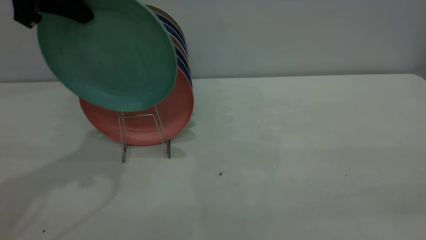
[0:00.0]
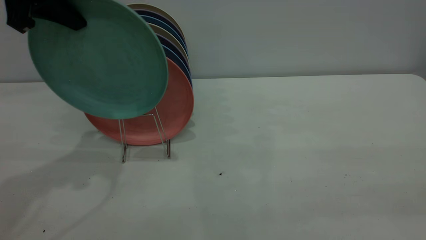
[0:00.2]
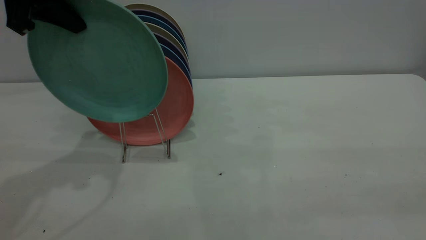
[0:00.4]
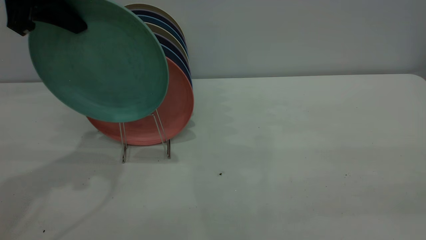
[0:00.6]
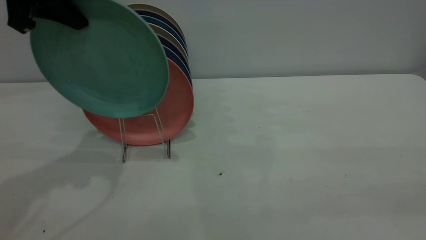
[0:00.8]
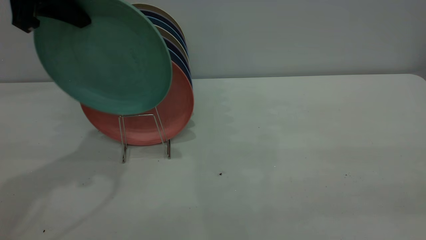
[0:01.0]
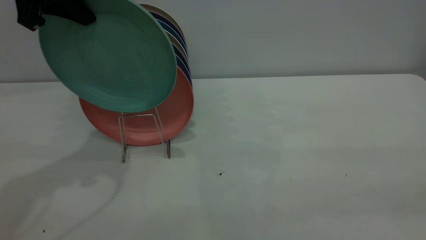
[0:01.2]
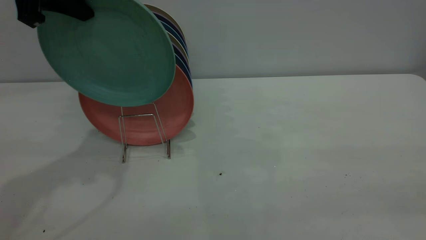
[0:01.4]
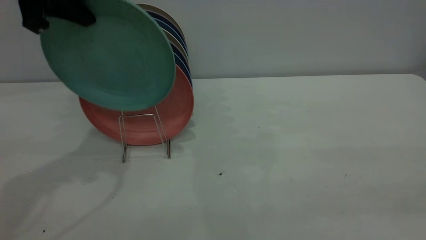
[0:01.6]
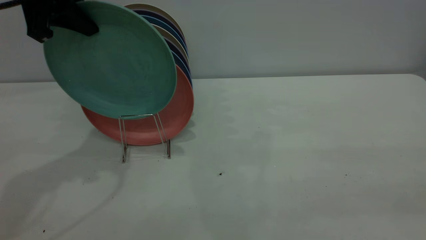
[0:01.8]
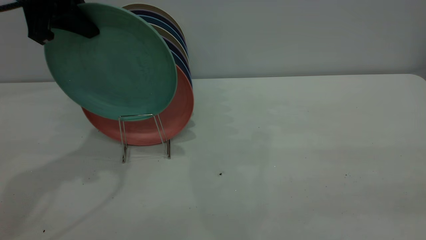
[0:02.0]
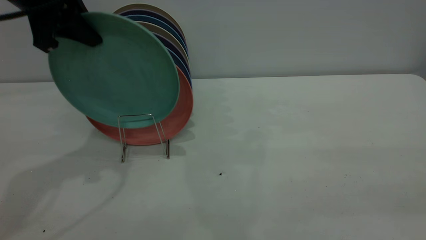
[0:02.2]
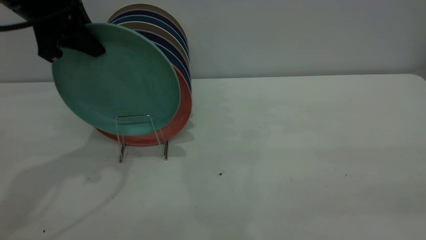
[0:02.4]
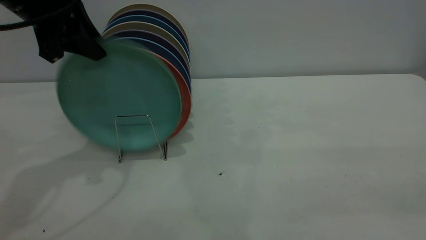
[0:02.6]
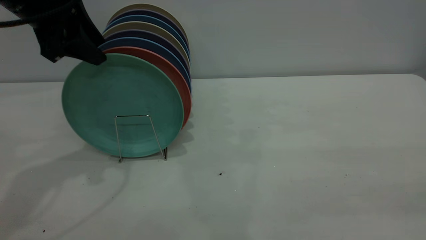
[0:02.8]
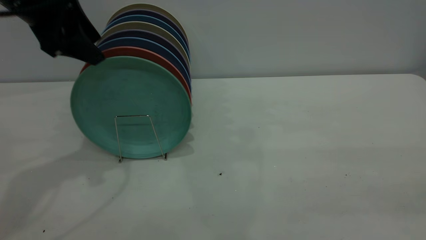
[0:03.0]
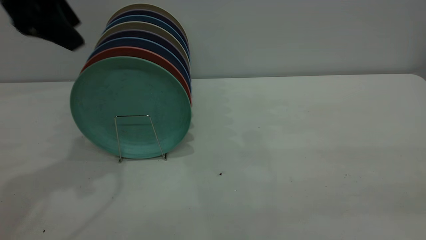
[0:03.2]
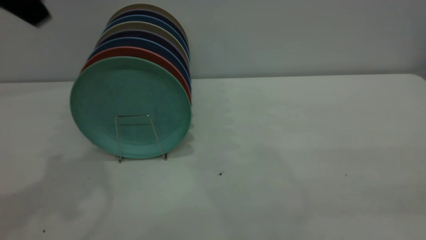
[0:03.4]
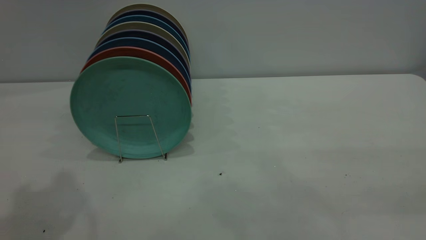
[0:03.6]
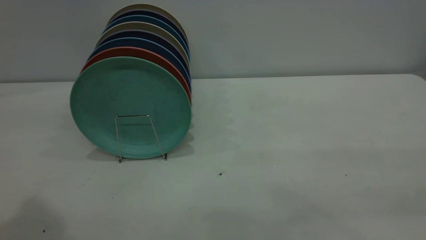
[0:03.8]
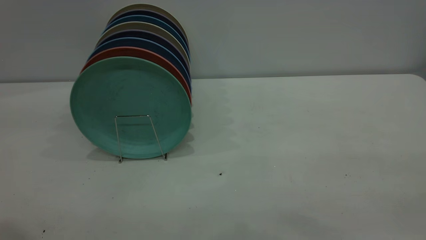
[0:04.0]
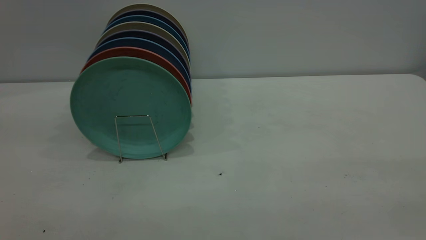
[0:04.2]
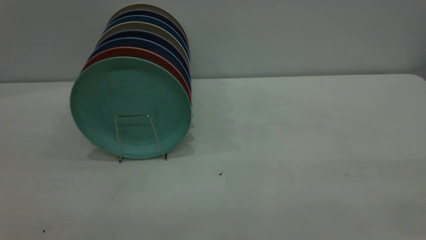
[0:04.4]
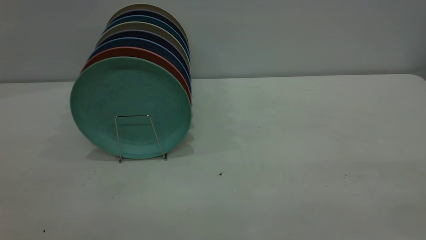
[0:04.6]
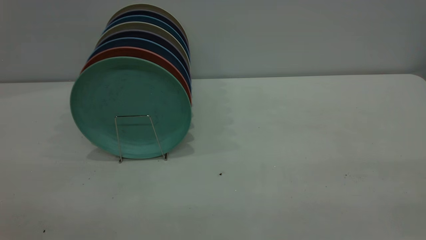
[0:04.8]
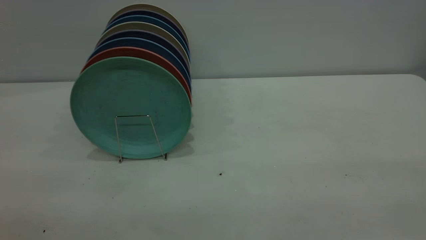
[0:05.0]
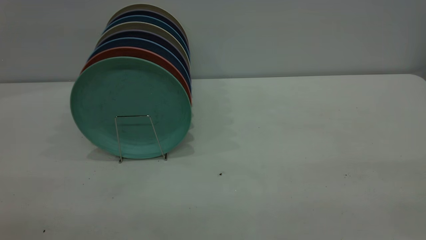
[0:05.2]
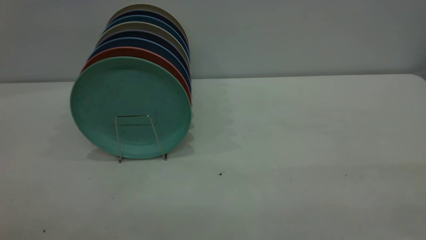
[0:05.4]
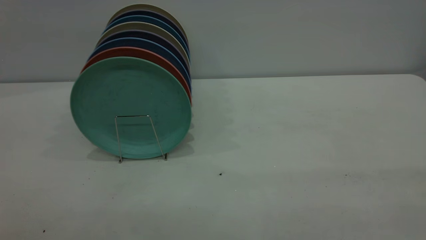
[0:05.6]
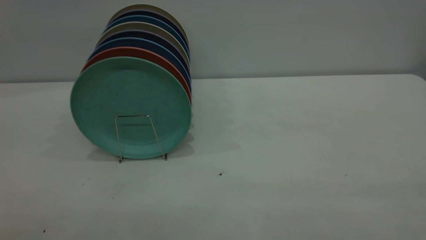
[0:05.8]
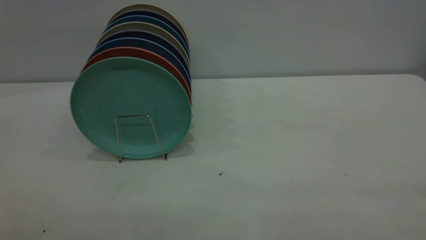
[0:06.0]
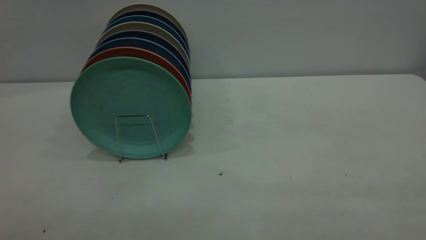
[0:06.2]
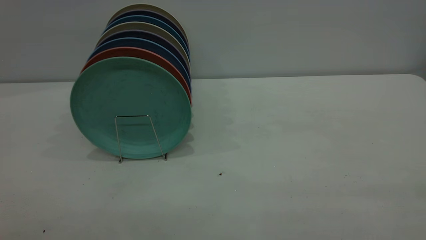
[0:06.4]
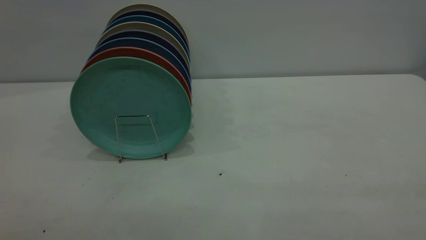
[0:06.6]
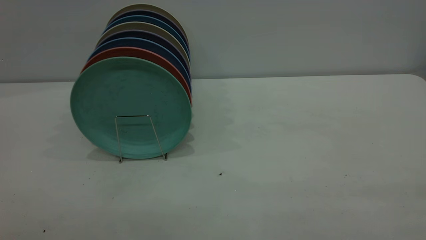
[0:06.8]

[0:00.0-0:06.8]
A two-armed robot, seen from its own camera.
Task of the whole recording: the right gripper grasp the green plate, the right gripper pass the green plate to the left gripper, and the left gripper place the green plate on the plate rack.
Step, 0:00.0 to 0:03.0: Place the plate on the shelf.
0:00.0 to 0:01.4: Both grippers stay put.
0:01.4 to 0:02.8: The left gripper shifts roughly 5 cm downward, and opens its fingers.
0:02.8 to 0:04.0: The left gripper goes some 30 cm backward and upward.
